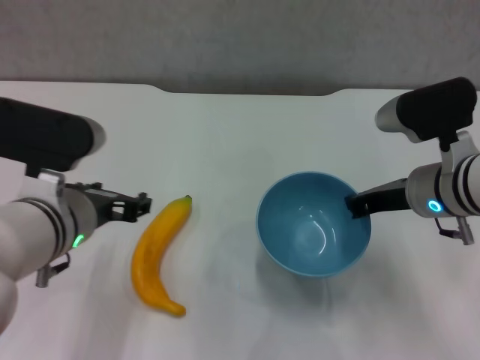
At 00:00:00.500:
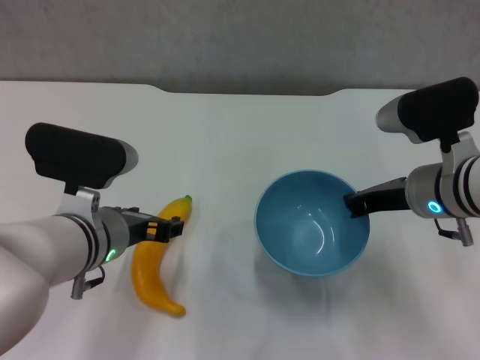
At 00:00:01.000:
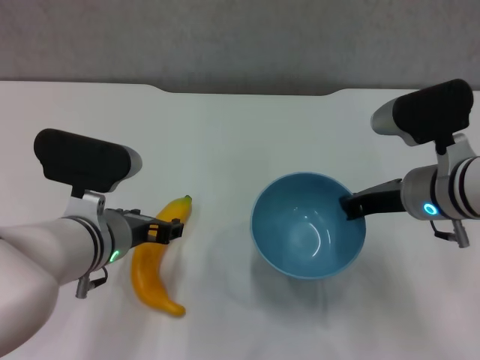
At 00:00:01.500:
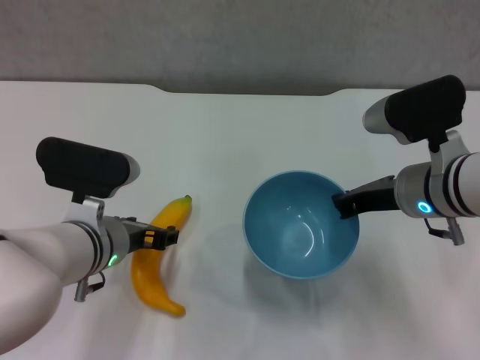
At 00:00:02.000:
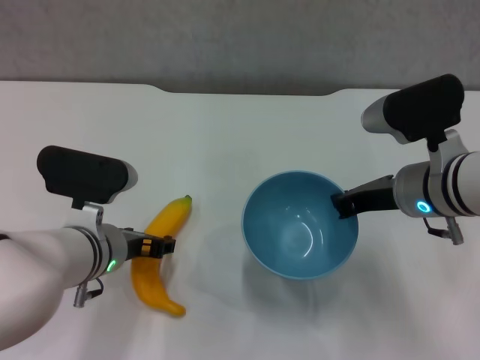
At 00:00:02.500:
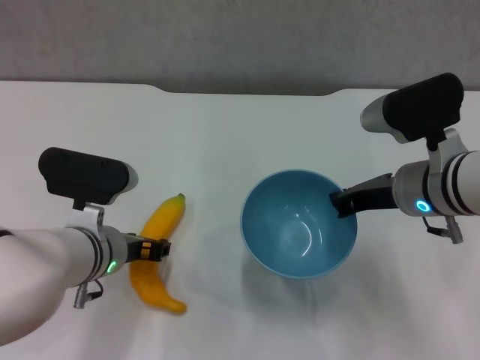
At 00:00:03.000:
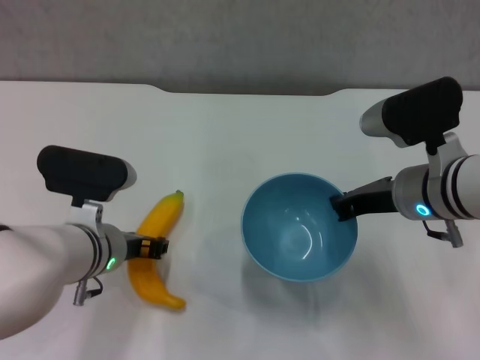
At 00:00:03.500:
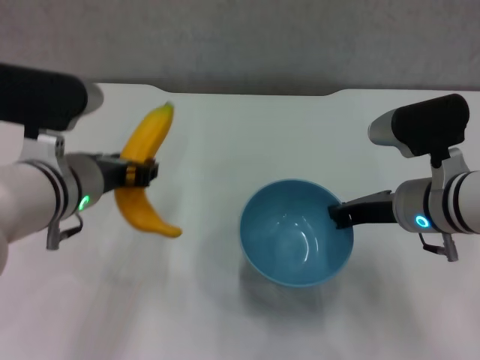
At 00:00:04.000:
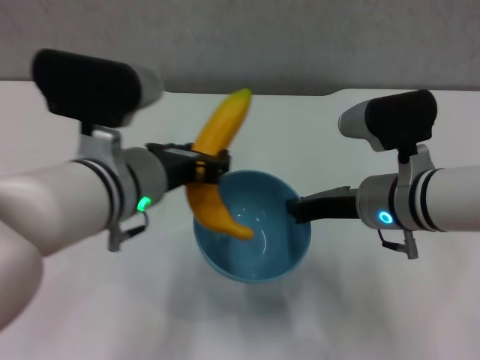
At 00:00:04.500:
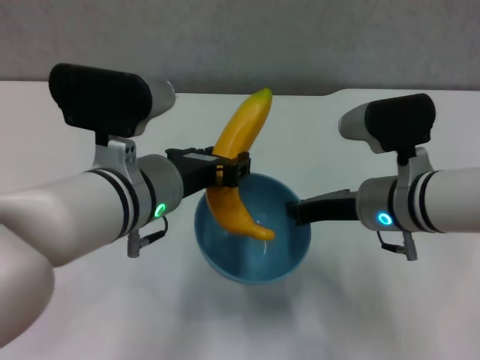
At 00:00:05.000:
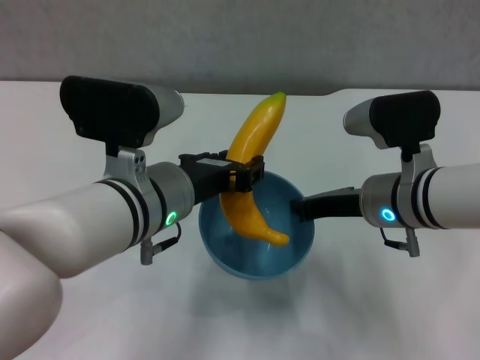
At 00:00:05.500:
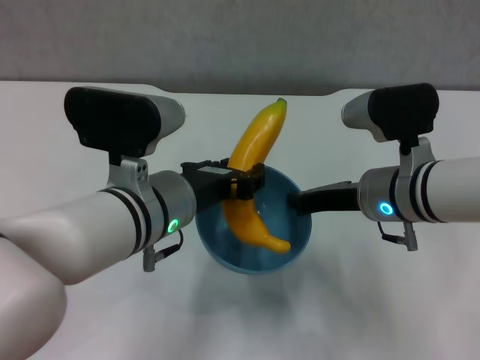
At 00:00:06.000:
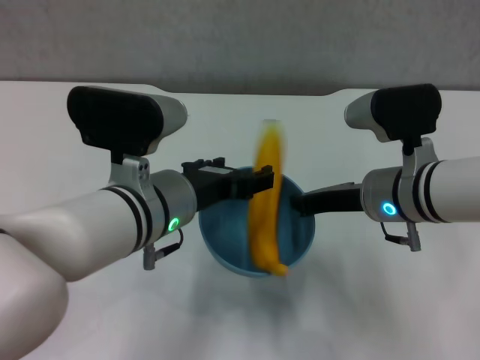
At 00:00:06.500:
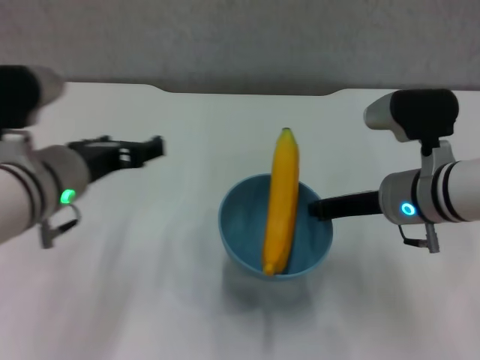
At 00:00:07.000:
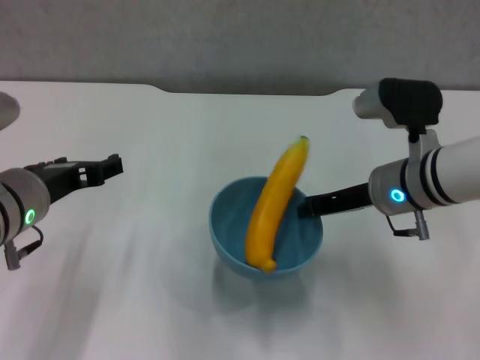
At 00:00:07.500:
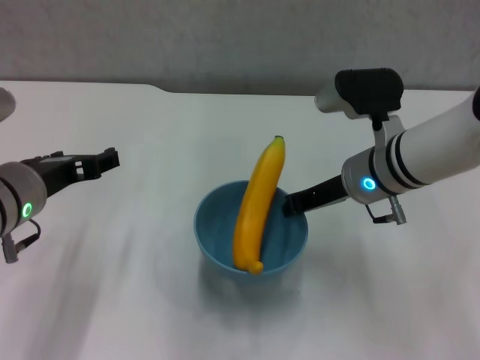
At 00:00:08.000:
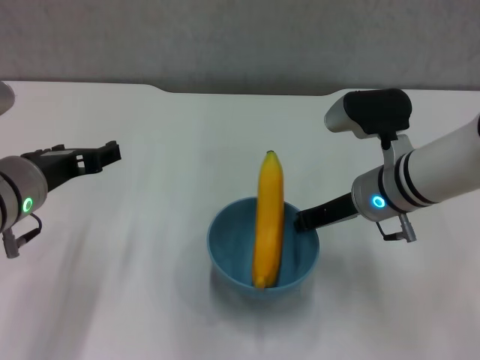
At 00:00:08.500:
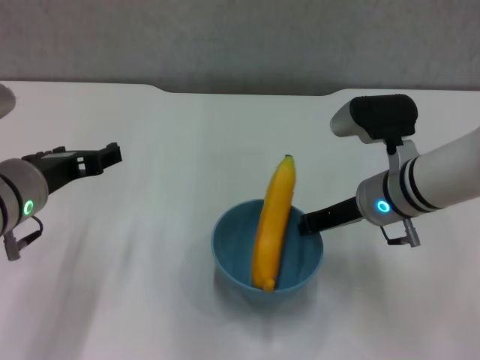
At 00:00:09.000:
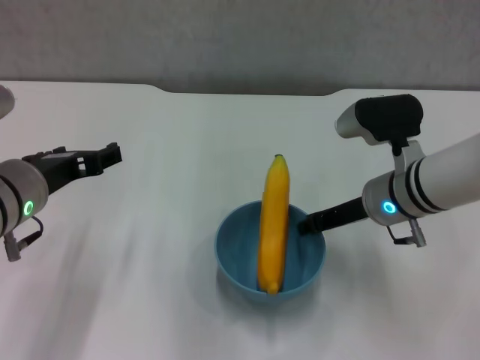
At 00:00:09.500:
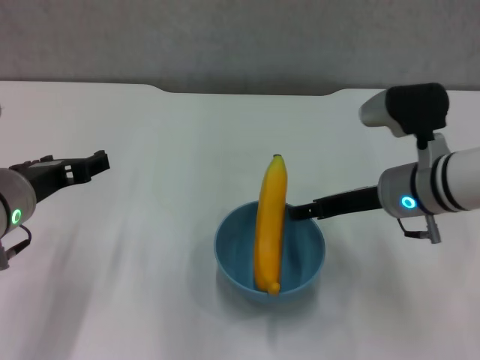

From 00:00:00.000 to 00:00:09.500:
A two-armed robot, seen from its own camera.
Step, from 00:00:00.500 to 00:00:02.500: Grasp the banana with left gripper.
Step, from 00:00:03.000 to 00:00:06.000: Place the banana in the blue bowl with left gripper.
Step, from 00:00:06.500 to 00:00:09.500: Place the bowl on the table with right gripper.
From 00:00:00.000 to 00:00:02.000: The left gripper shifts about 10 cm downward.
From 00:00:02.000 to 00:00:04.000: The left gripper is displaced upward by roughly 10 cm, and closes its fingers.
From 00:00:05.500 to 00:00:07.500: The left gripper shifts approximately 10 cm to the left, and opens up.
From 00:00:07.500 to 00:00:09.500: The right gripper opens its fingers.

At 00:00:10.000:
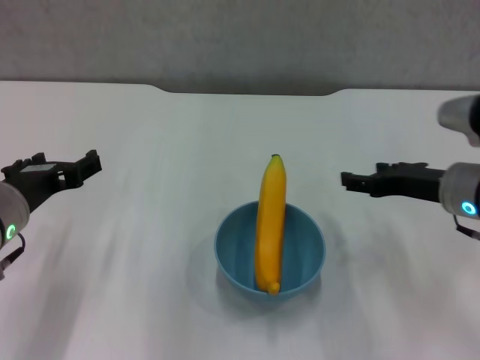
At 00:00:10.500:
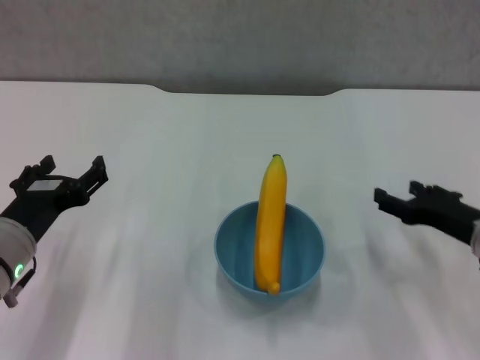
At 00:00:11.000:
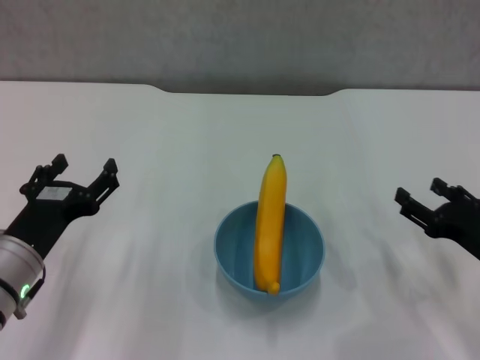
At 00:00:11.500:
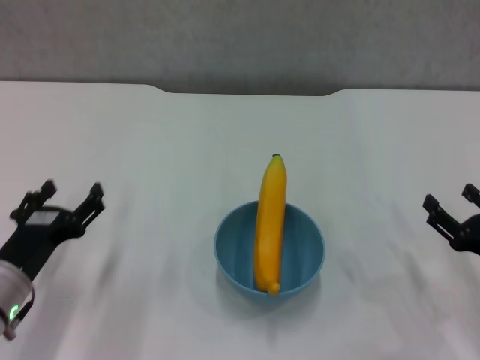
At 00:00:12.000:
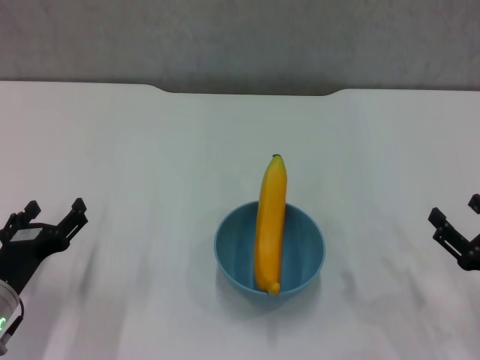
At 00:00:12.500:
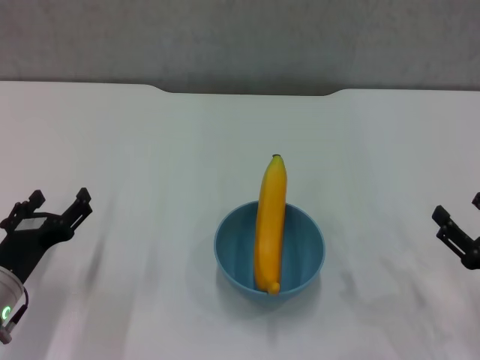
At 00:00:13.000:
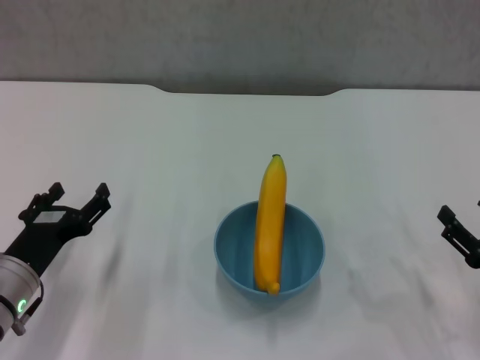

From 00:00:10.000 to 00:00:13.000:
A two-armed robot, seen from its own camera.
From 00:00:10.000 to 00:00:11.500: The right gripper heads backward, downward and to the right, covering some 15 cm. The left gripper heads downward, covering some 10 cm.
From 00:00:11.500 to 00:00:13.000: The grippers make only small movements.
